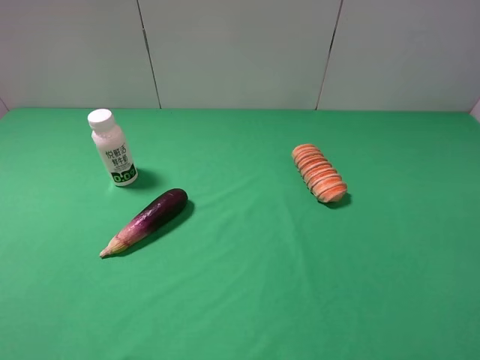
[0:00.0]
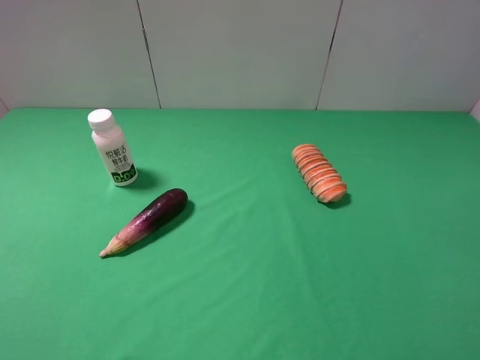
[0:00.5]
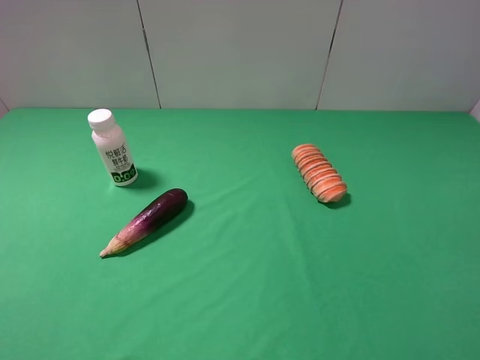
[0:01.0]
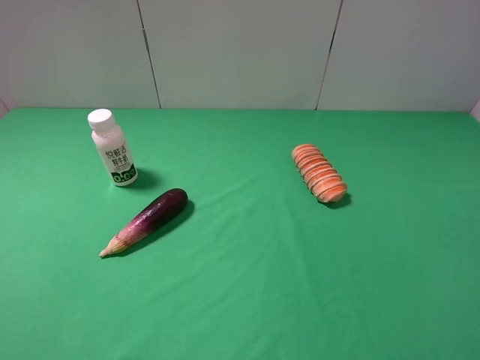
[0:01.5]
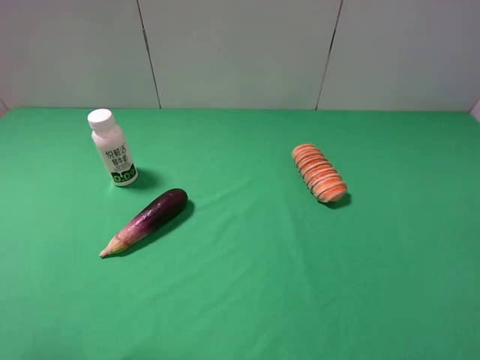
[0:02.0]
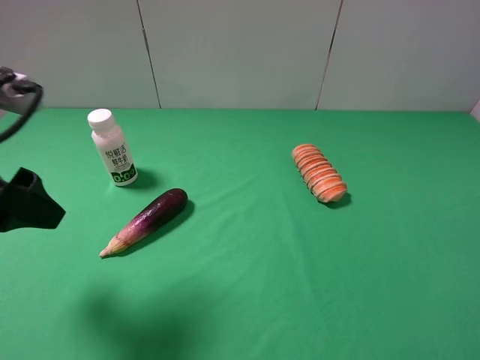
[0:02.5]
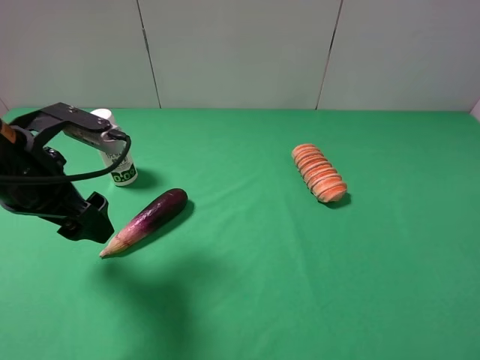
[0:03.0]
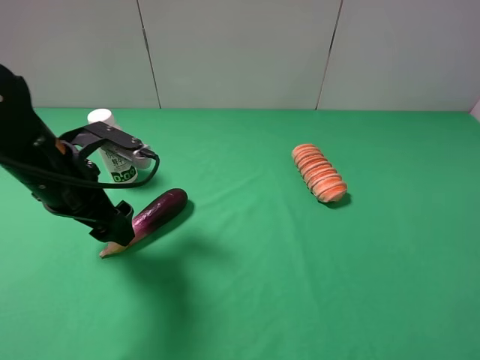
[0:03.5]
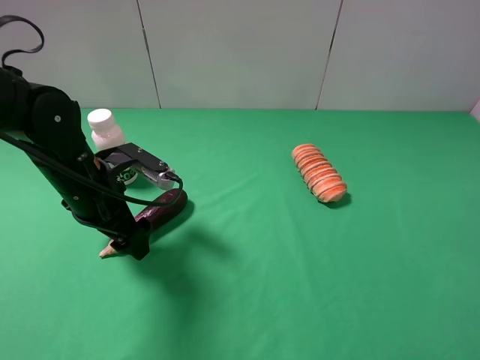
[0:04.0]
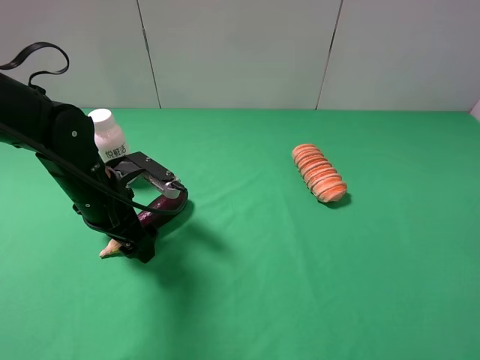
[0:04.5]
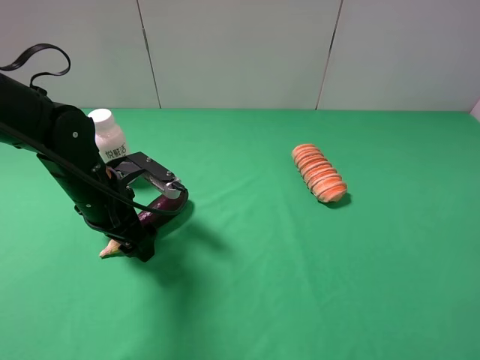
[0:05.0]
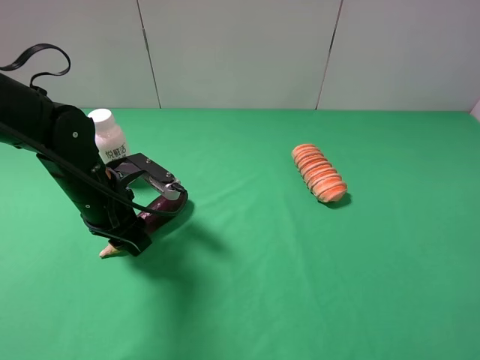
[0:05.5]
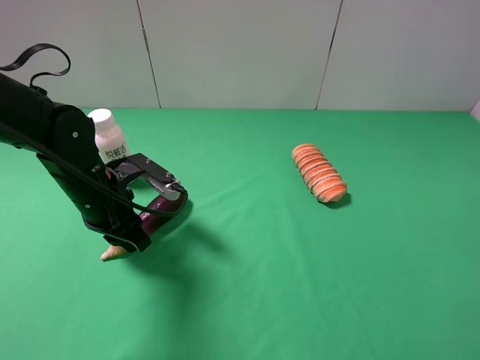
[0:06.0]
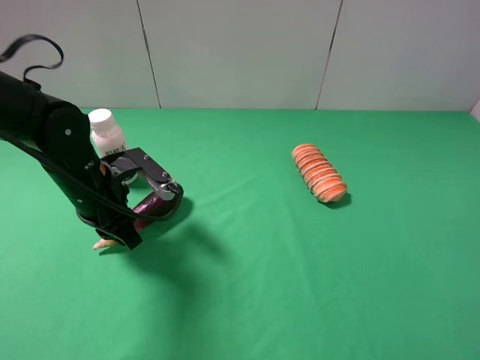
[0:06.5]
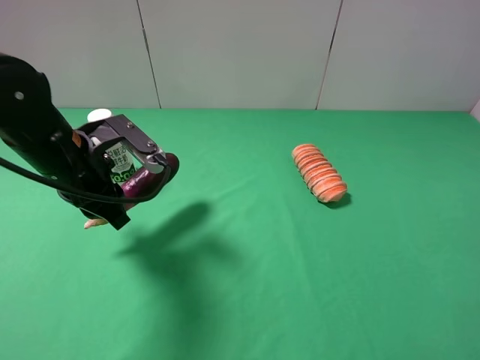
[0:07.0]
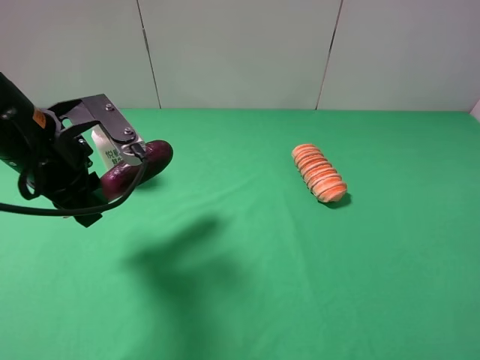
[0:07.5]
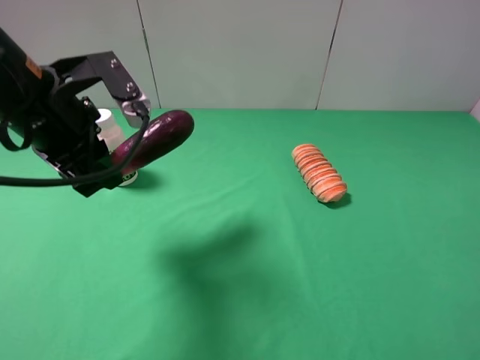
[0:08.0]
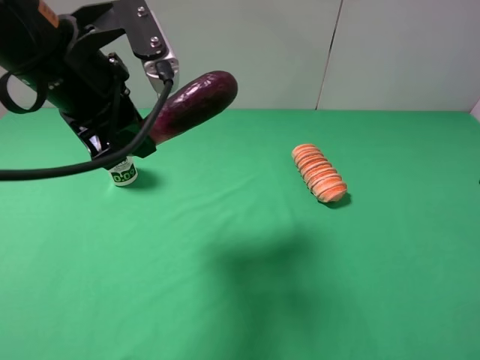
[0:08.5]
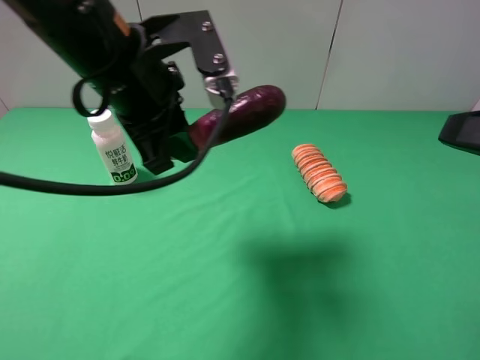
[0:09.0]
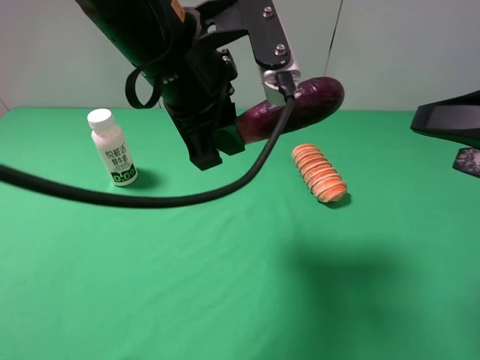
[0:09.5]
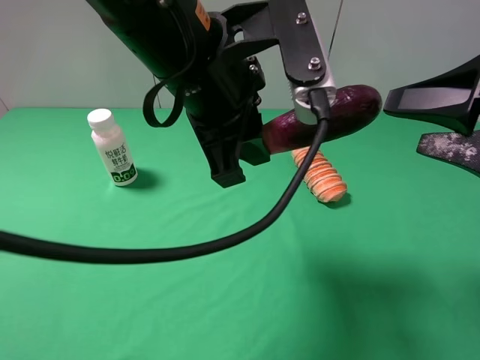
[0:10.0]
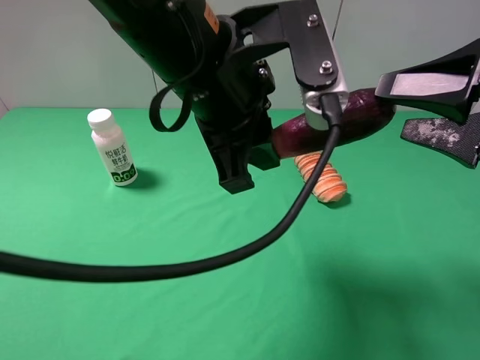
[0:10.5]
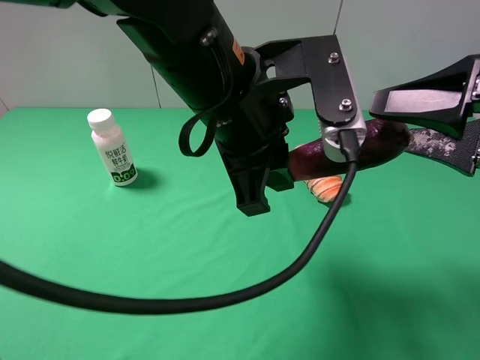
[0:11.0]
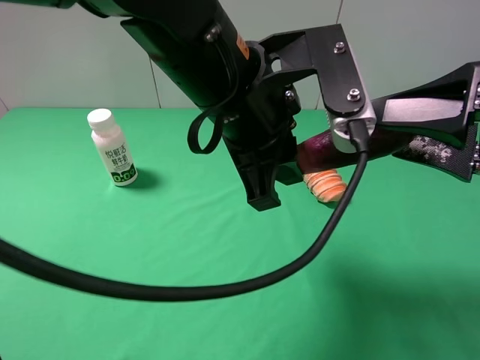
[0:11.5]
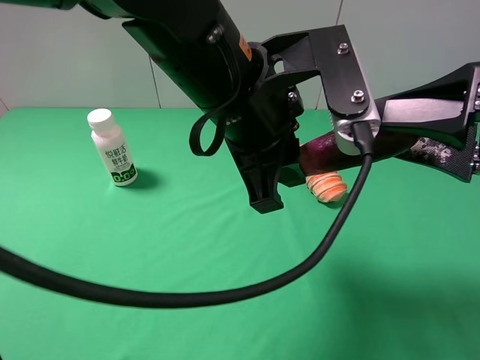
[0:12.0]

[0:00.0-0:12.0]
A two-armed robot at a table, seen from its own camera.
Task of the whole recording: use the left gripper to pick up the item and transfer it from the left gripper to the right gripper.
Step, 0:00.0 to 0:06.0: Use the left gripper to grab the eggplant on the left side of the table.
0:02.0 to 0:04.0: The left gripper goes roughly 30 cm downward, forward and to the right.
0:04.0 to 0:06.0: The left gripper closes up.
0:06.0 to 0:08.0: The left gripper travels upward by some 15 cm.
0:08.0 to 0:10.0: The right gripper moves forward, approximately 15 cm, while the left gripper shifts roughly 15 cm to the right.

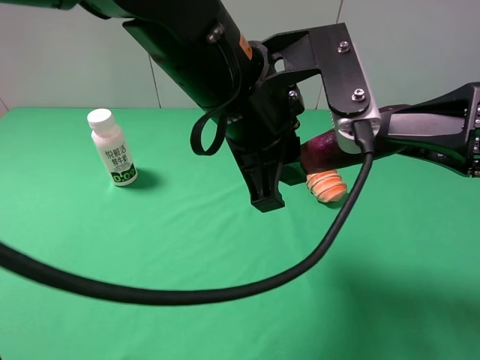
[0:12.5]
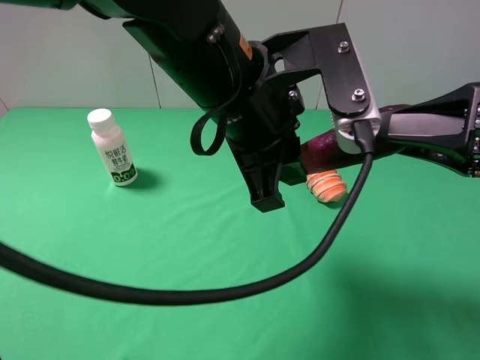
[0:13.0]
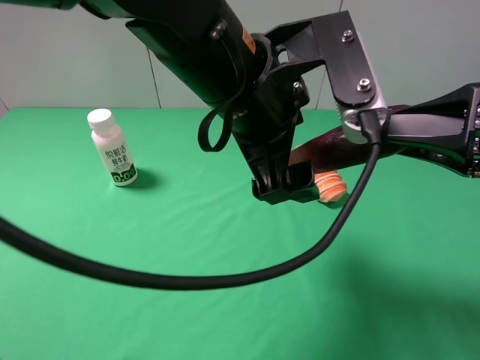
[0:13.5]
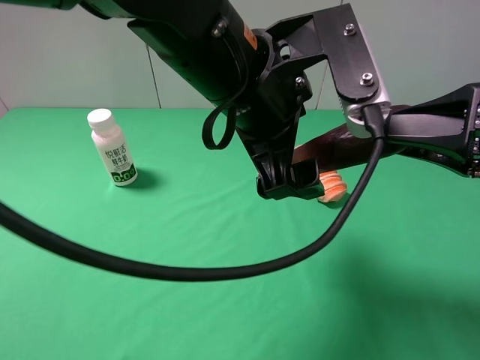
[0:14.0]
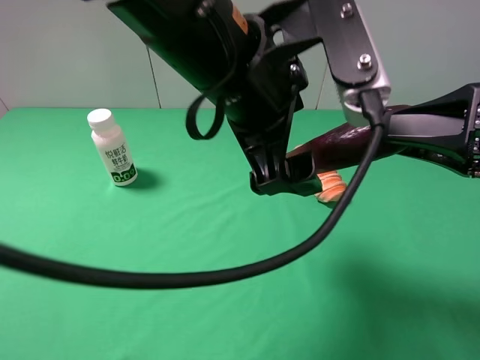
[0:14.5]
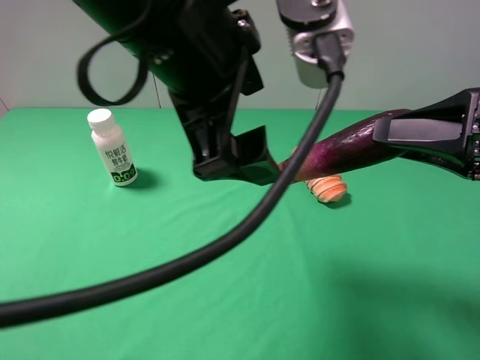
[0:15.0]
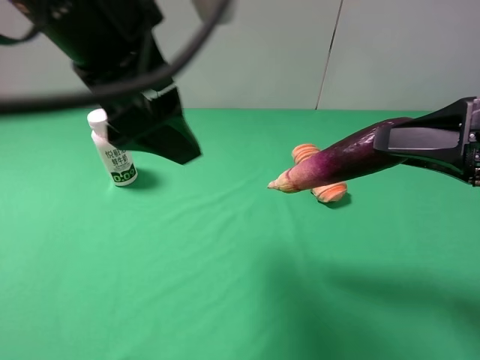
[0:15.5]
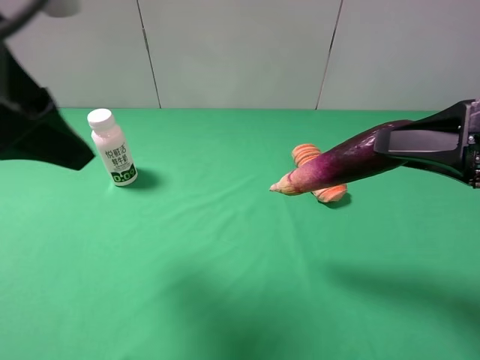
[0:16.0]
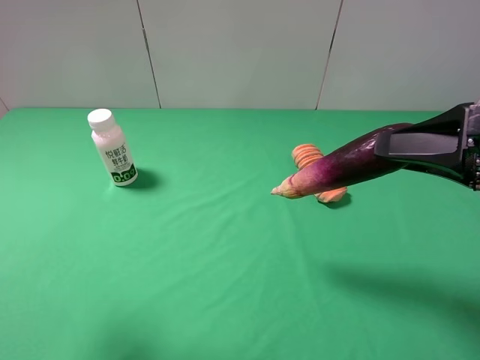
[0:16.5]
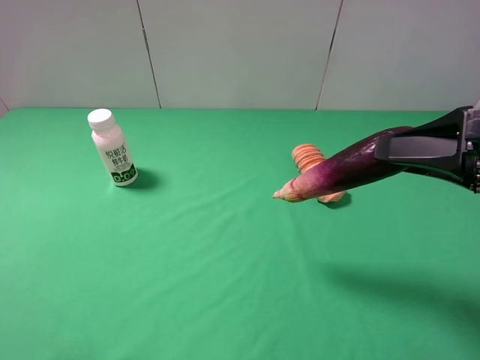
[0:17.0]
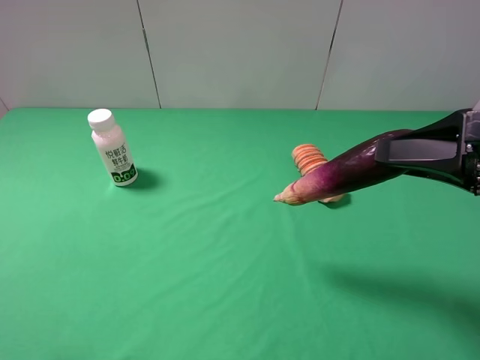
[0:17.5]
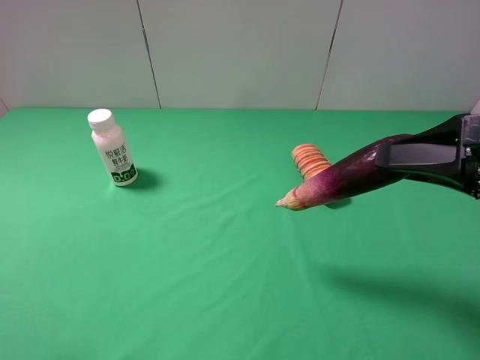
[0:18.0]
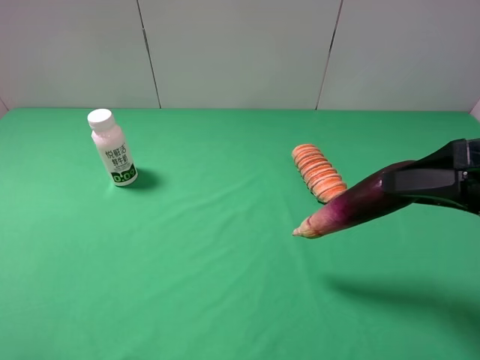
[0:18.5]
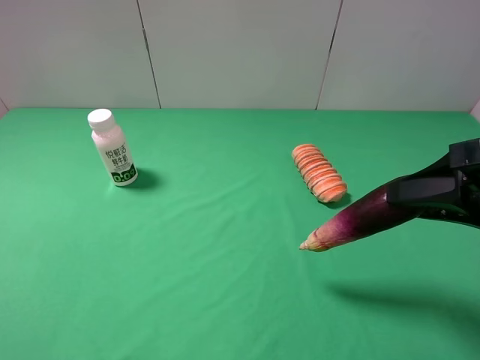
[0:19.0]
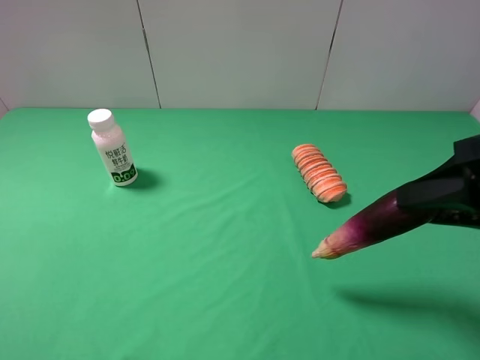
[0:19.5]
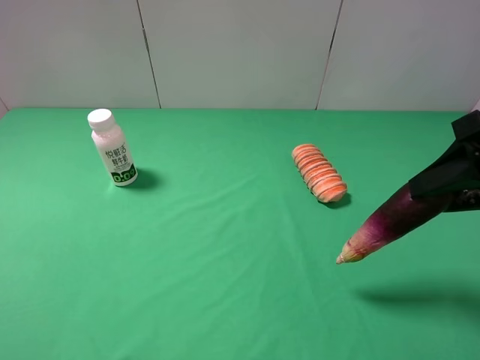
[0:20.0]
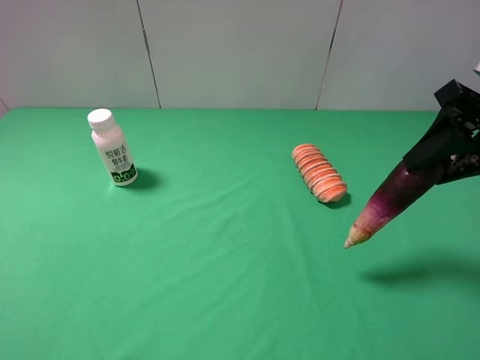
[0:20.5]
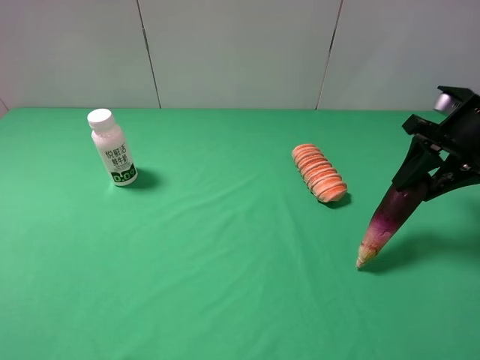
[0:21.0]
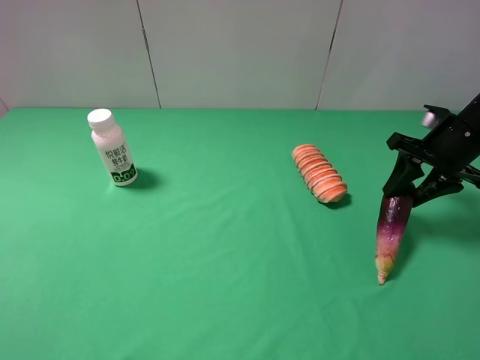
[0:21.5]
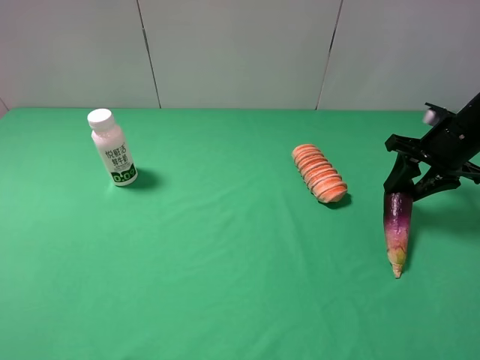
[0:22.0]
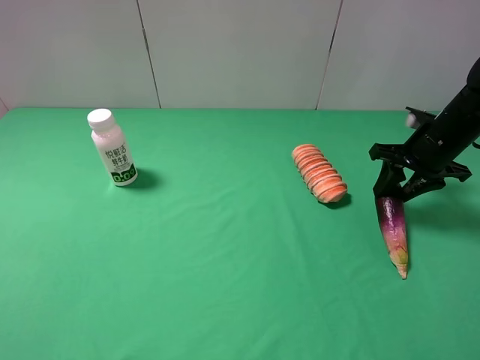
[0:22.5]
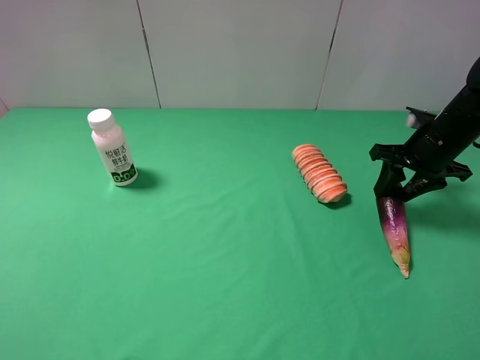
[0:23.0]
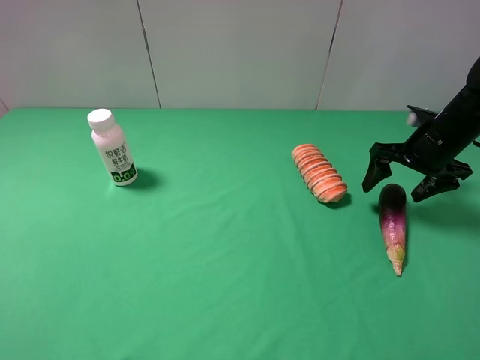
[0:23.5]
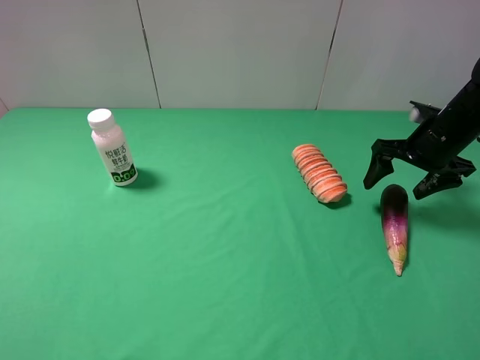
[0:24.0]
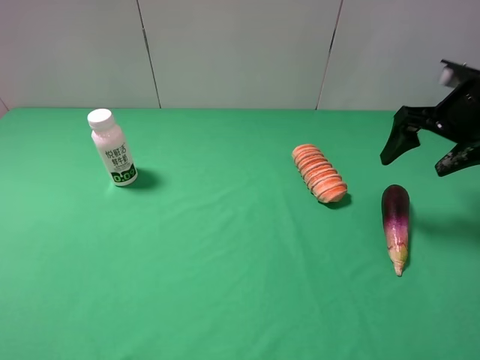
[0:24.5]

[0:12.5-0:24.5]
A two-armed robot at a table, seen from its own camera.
Task of the whole recording: use the left gripper to pick up the item and transfer it from the left gripper to the right gripper.
Step, 0:14.5 to 0:23.5: The right gripper places eggplant on the right side of the table.
0:12.5 to 0:14.5: The left gripper opens its fingers.
0:14.5 to 0:16.5: The left gripper heads to the left and backward, covering approximately 30 cm.
0:16.5 to 0:18.5: The left gripper heads backward and downward, covering about 10 cm.
0:18.5 to 0:20.5: The right gripper travels forward by roughly 10 cm.
0:20.5 to 0:22.5: The right gripper moves downward and forward, roughly 15 cm.
0:22.5 to 0:24.5: The right gripper goes some 10 cm upward, and opens its fingers.

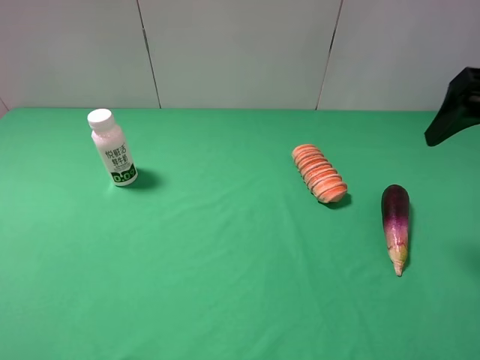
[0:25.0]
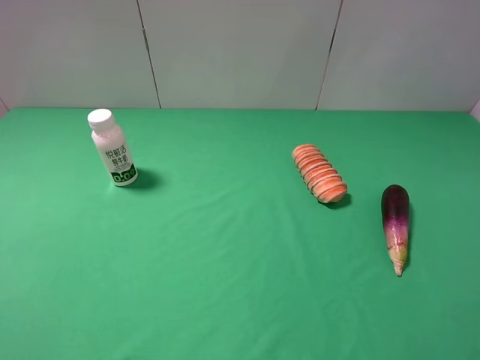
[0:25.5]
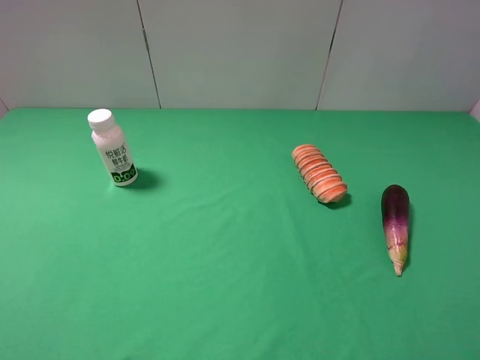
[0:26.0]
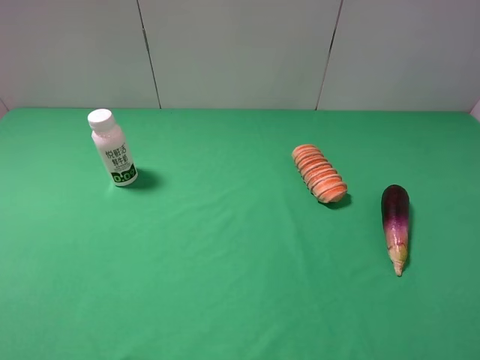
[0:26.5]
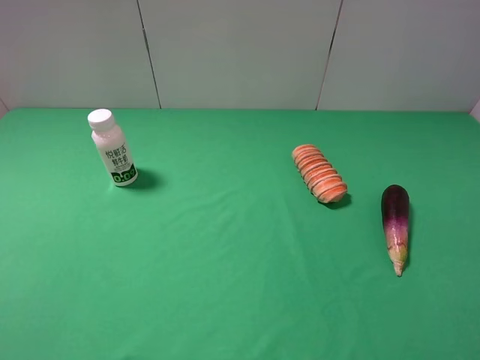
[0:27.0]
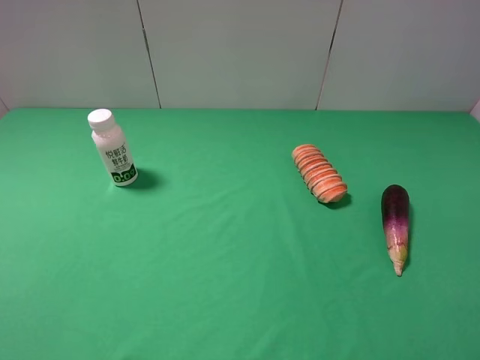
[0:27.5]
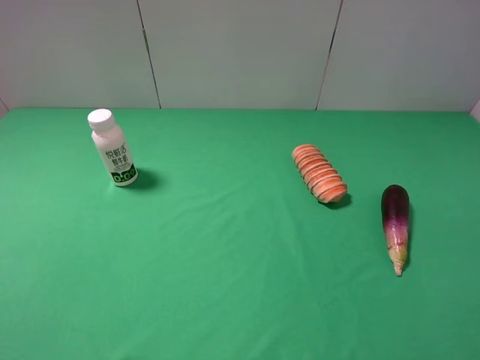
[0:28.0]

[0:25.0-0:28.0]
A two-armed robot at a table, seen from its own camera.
Task of the whole recording: use the left gripper to pick up the item and transfer it from the left gripper to the right gripper.
0:25.0 to 0:26.5: The right gripper goes some 25 cm backward.
